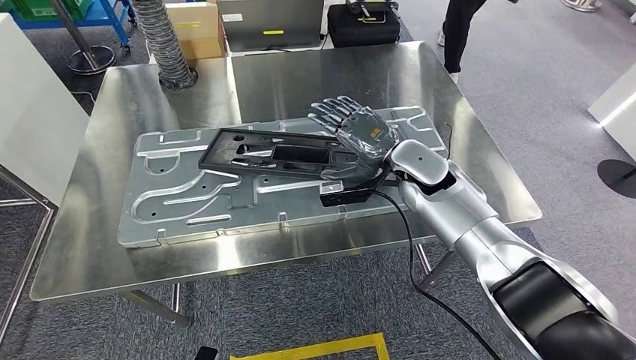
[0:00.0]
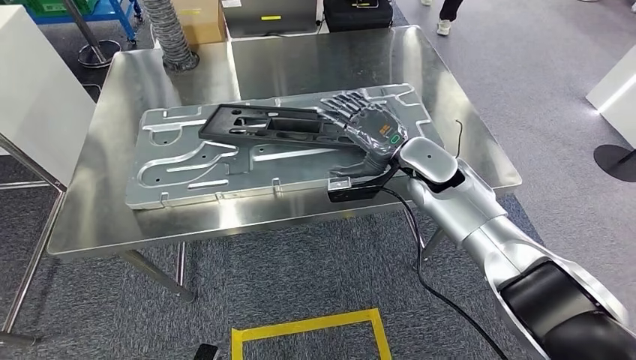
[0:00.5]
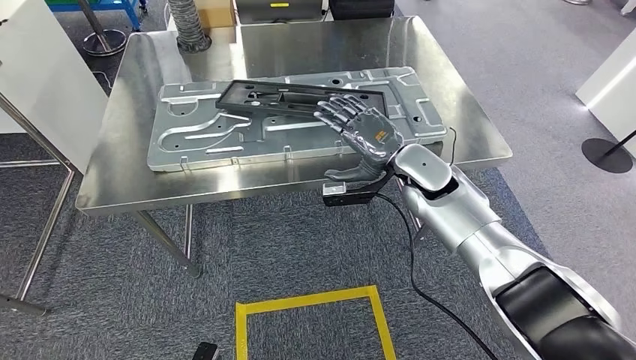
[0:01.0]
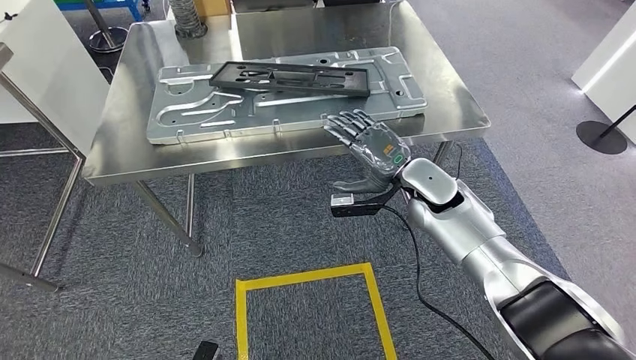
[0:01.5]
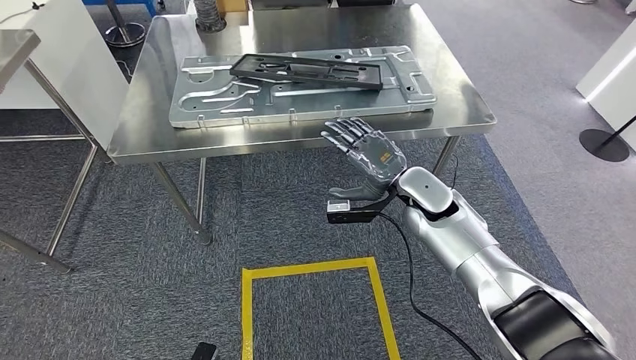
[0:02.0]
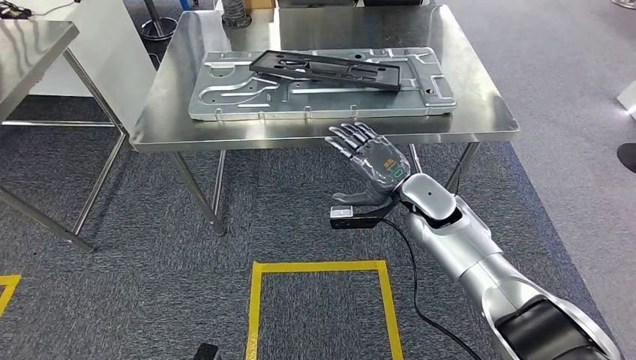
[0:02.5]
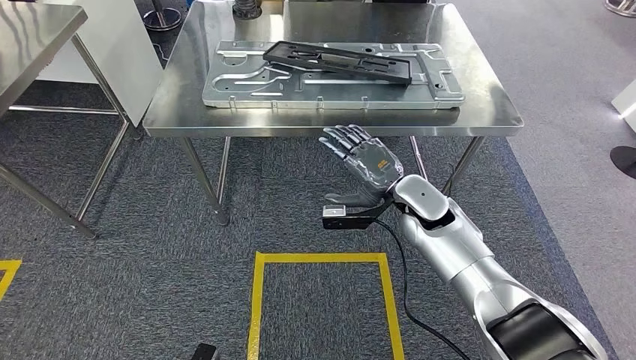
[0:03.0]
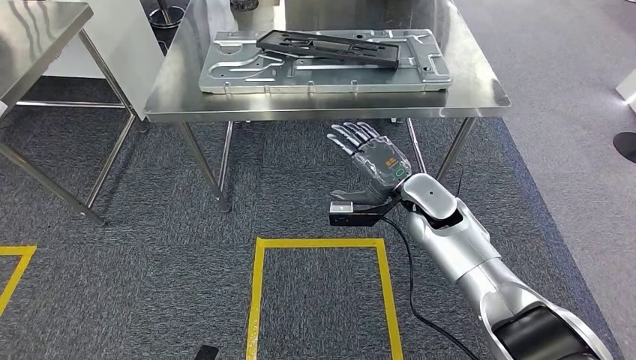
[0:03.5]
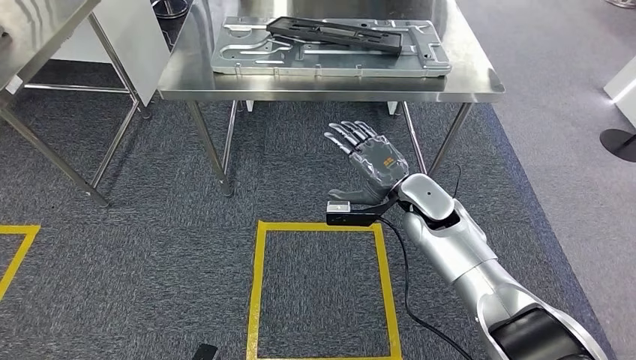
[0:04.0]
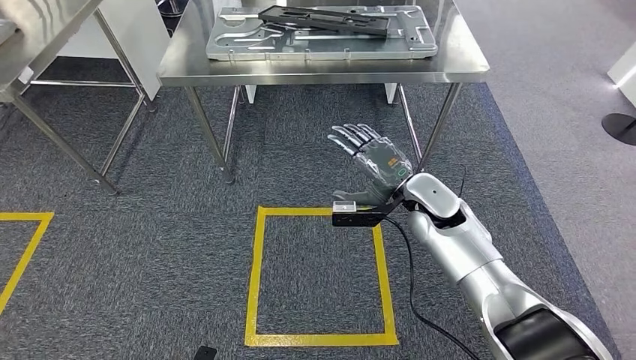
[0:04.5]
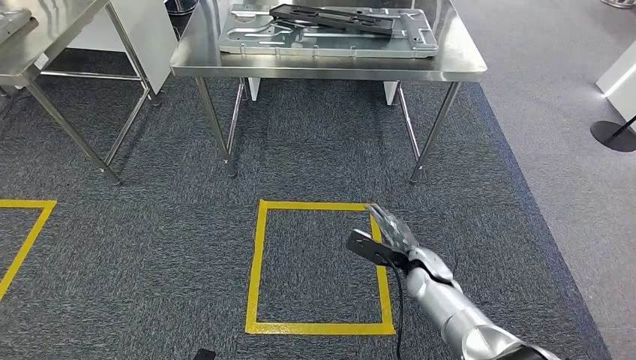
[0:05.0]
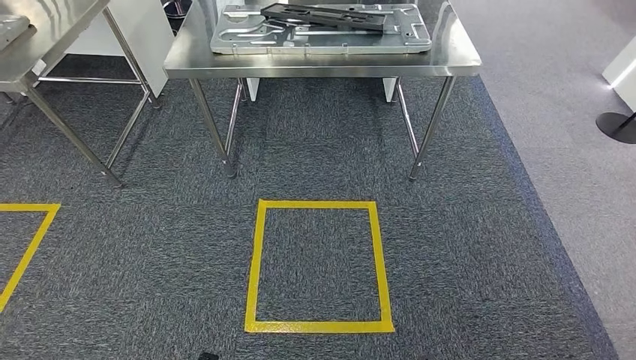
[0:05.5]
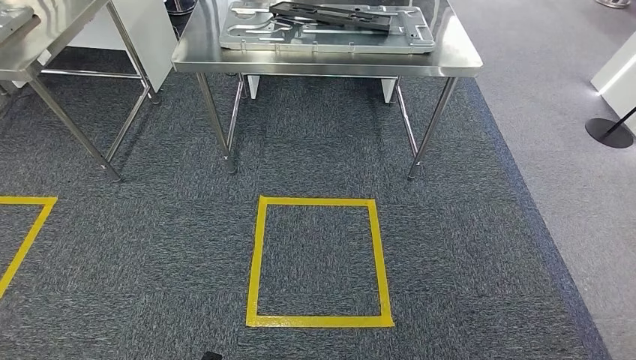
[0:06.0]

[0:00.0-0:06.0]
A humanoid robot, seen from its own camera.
Step, 0:01.5 to 0:06.0: Move to the initial position of the shelf.
